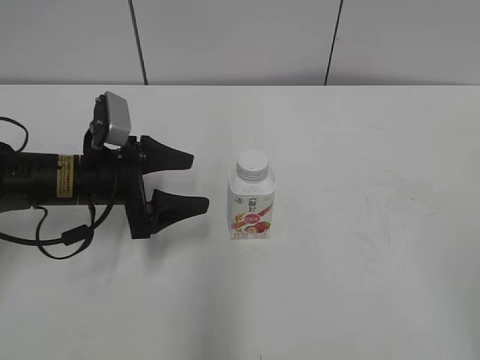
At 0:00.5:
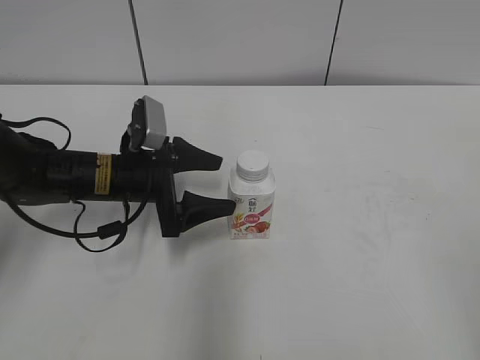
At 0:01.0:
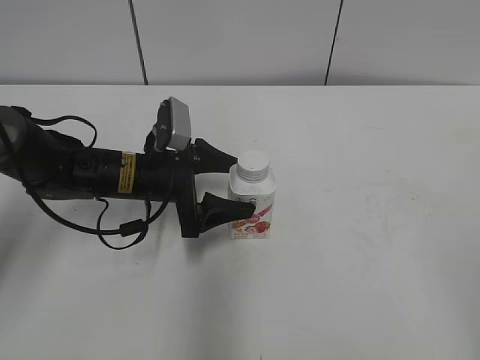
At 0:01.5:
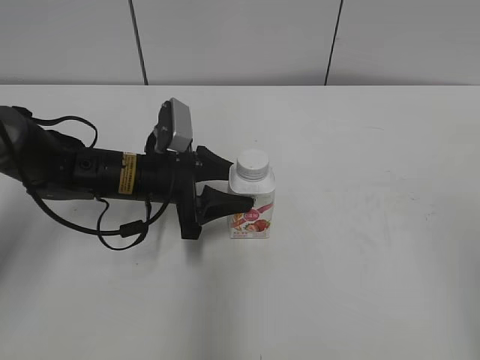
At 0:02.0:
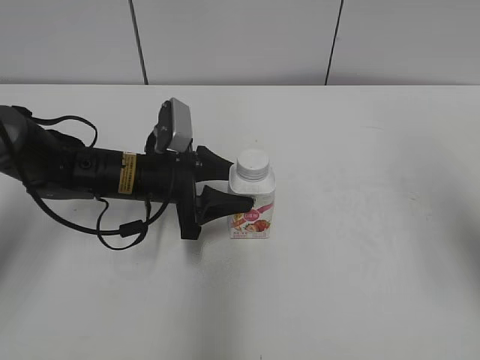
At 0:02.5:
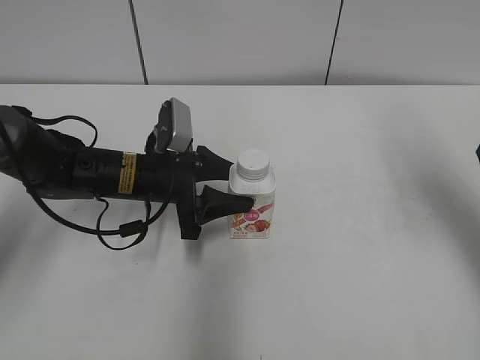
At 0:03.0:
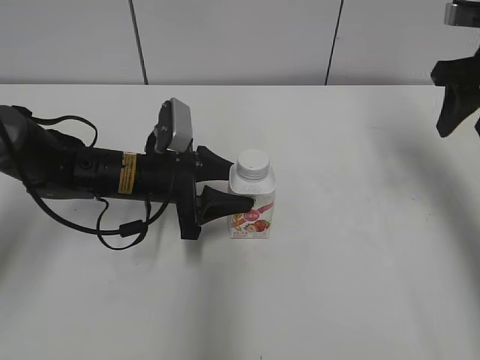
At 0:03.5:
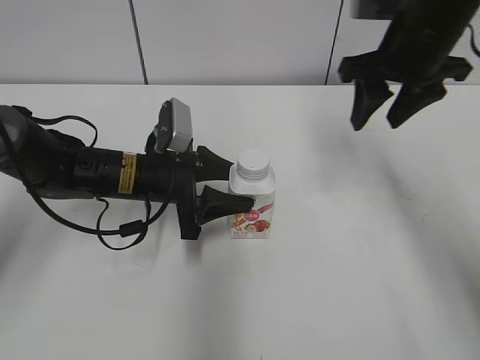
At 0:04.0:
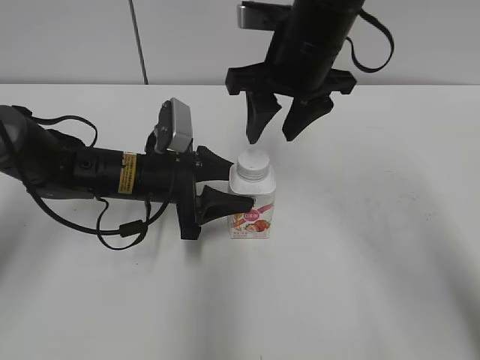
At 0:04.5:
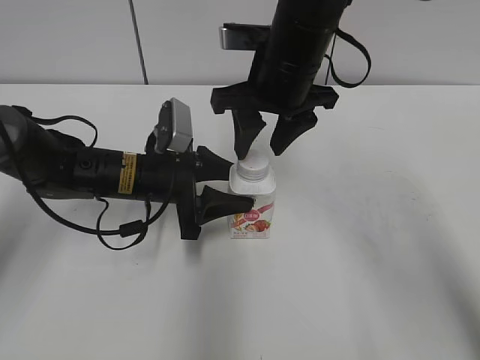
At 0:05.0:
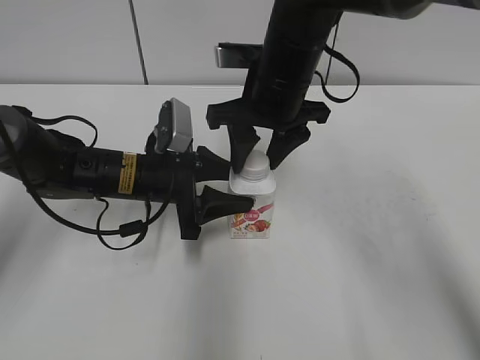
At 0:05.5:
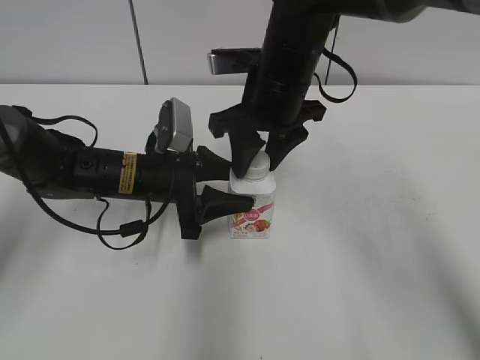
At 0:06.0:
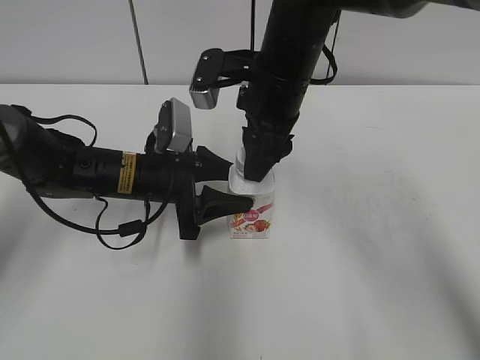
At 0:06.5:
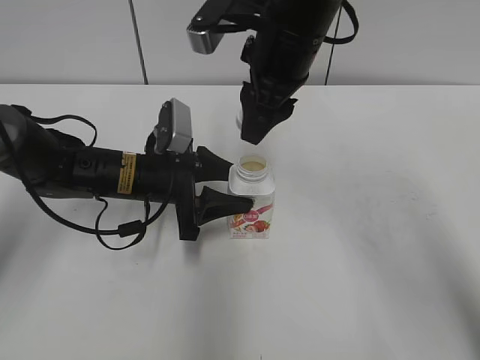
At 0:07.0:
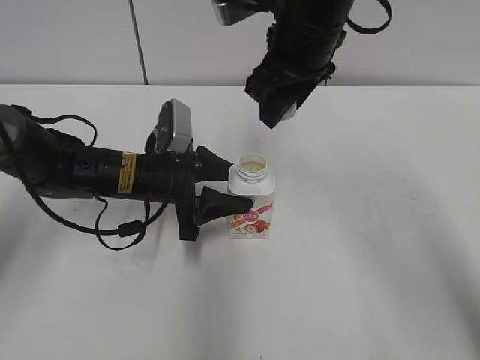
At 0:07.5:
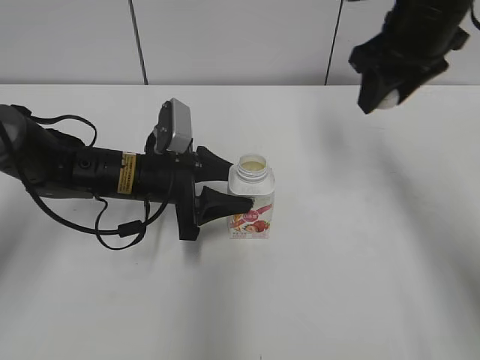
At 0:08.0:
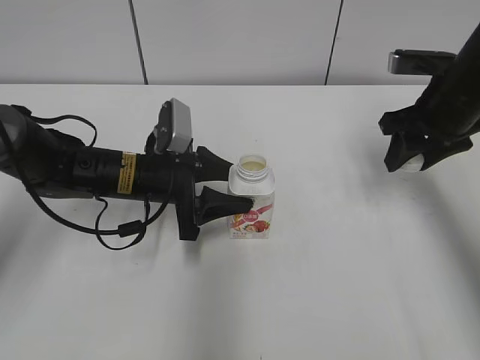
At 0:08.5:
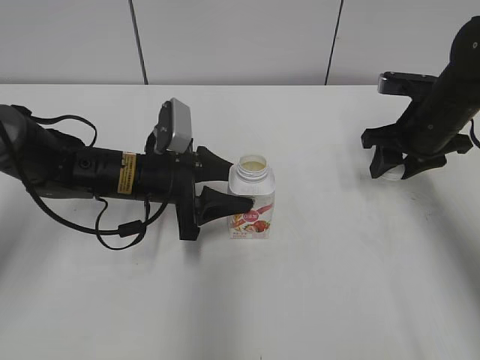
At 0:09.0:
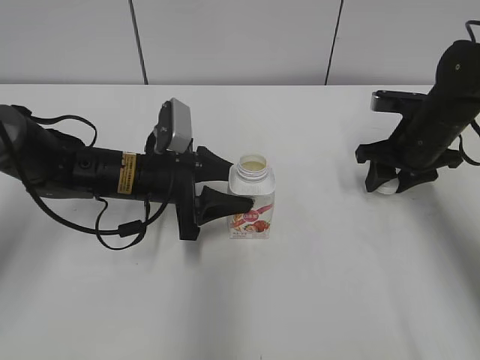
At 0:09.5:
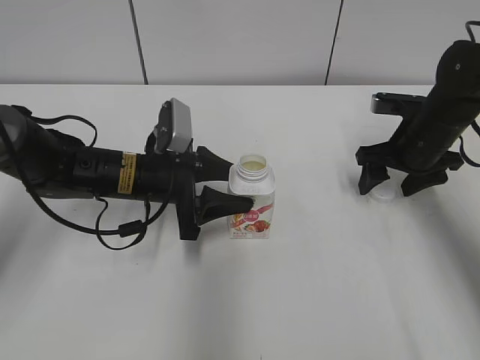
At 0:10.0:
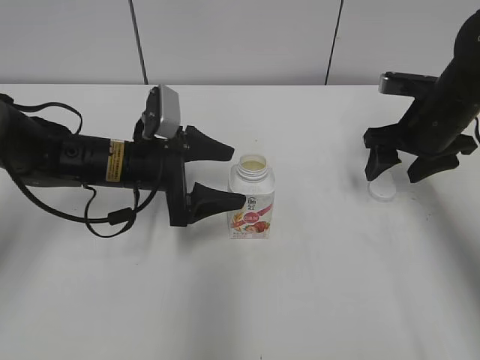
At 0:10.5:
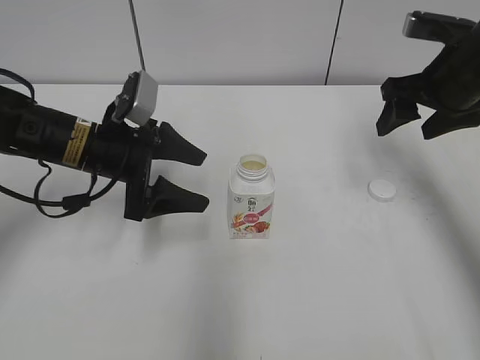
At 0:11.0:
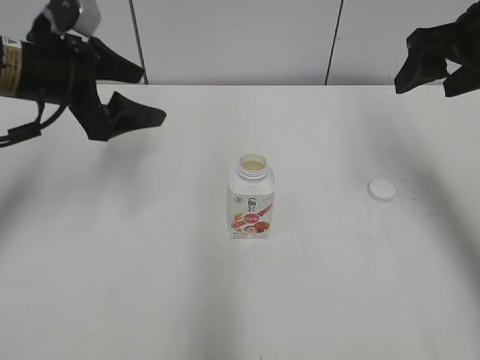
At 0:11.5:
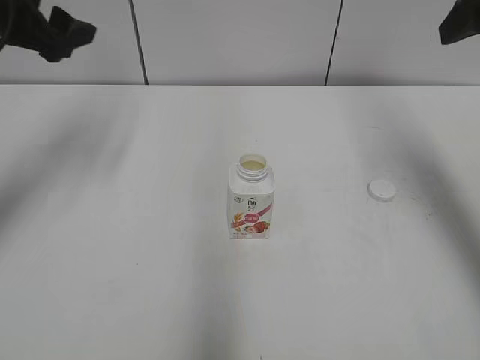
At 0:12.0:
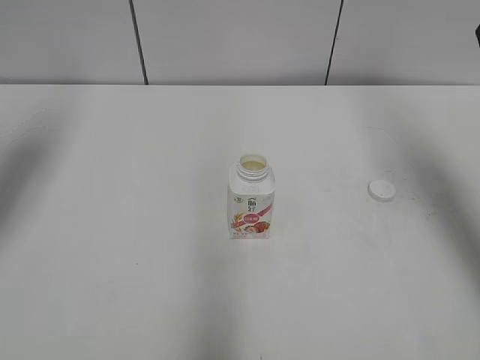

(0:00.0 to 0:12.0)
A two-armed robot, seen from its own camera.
Step, 0:06.5 - 0:09.0: Place the bottle cap on the right.
0:00.0 - 0:02.0: The left gripper is displaced to the right by about 5 cm, and closes up. The right gripper goes some 20 cm forward.
0:02.0 - 0:04.0: The right gripper moves to the left and forward, about 30 cm, and closes up.
0:06.0 - 0:08.0: The right gripper travels to the right by about 20 cm.
0:08.0 - 0:10.0: The left gripper opens up. The right gripper opens its fingers.
0:10.0 - 0:12.0: The right gripper moves upward, approximately 20 cm, while the left gripper goes about 25 cm upward and to the left.

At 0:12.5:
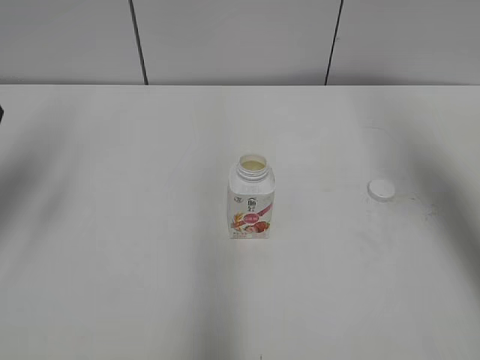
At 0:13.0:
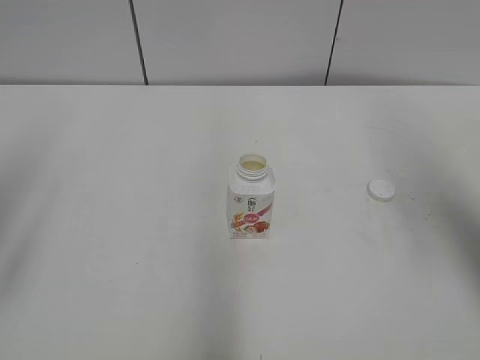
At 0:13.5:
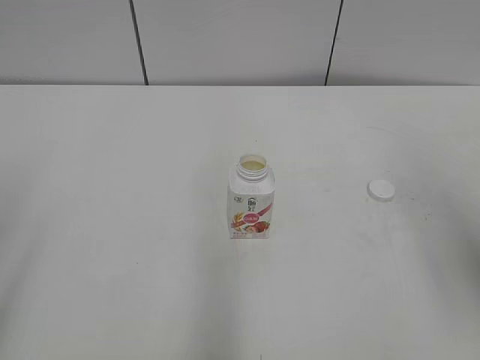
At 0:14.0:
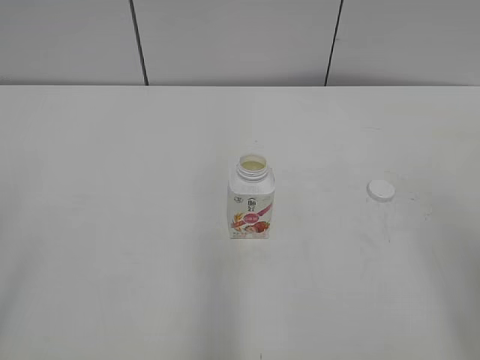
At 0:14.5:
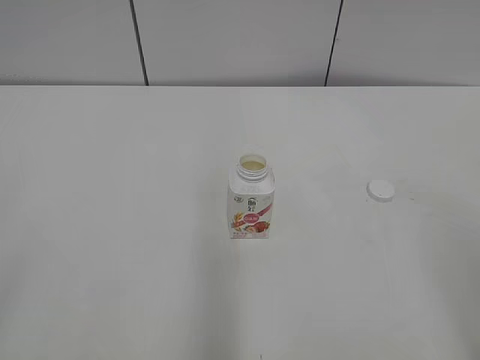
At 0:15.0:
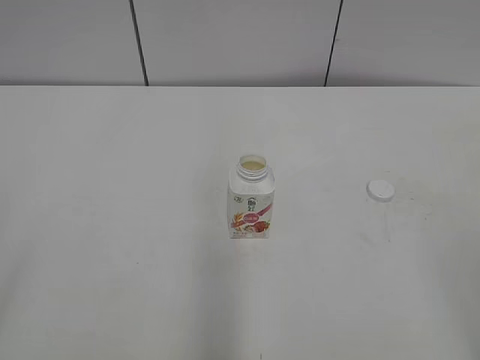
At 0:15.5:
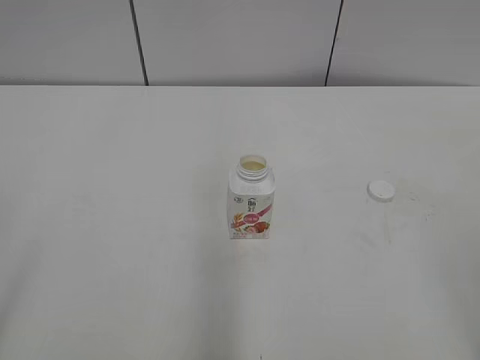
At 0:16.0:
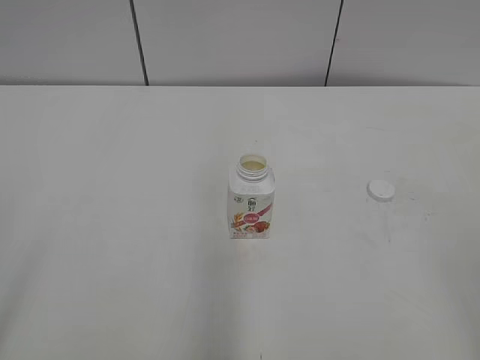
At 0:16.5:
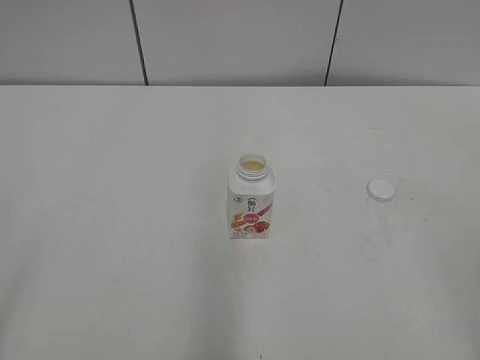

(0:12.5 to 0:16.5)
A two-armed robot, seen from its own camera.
0:12.5 - 0:14.5: The grippers both shift backward by roughly 25 cm.

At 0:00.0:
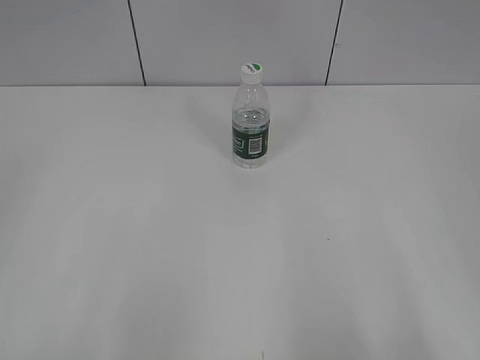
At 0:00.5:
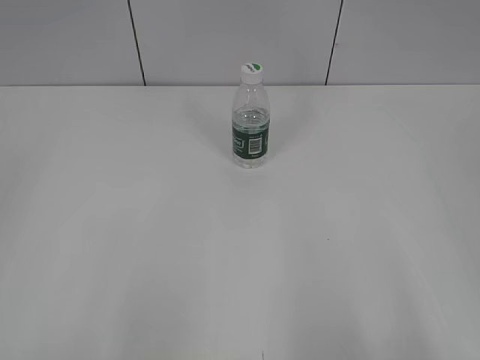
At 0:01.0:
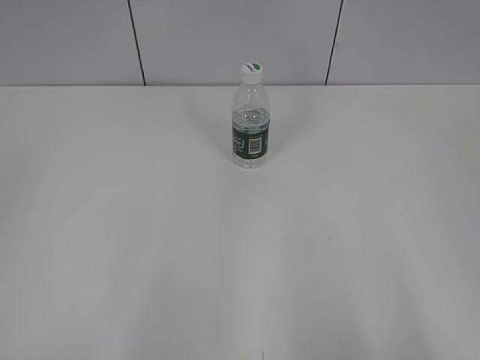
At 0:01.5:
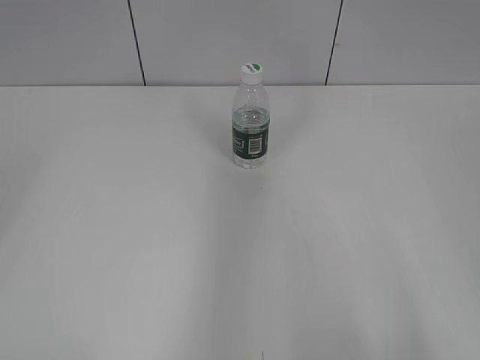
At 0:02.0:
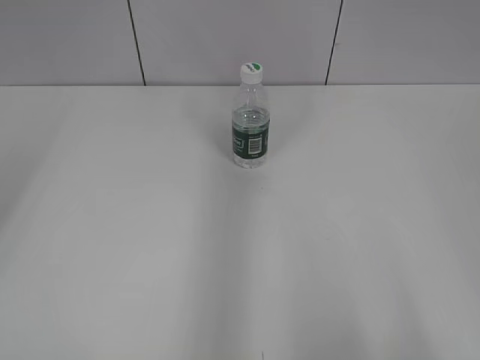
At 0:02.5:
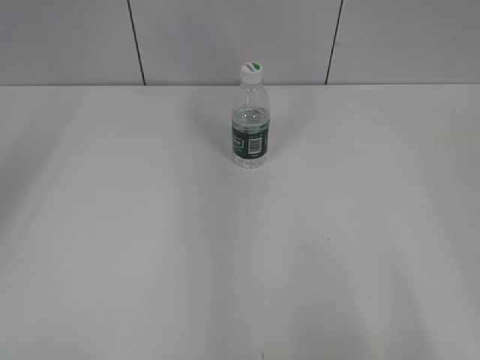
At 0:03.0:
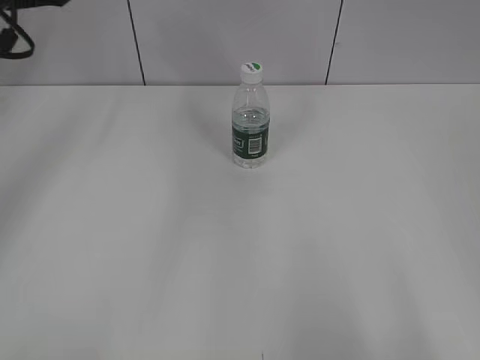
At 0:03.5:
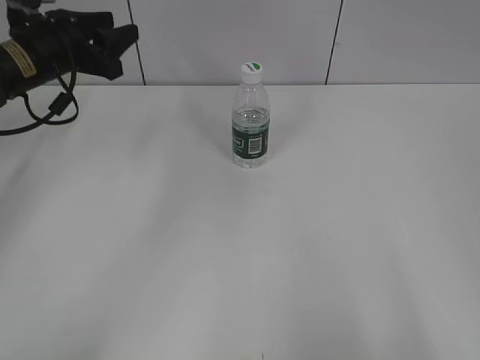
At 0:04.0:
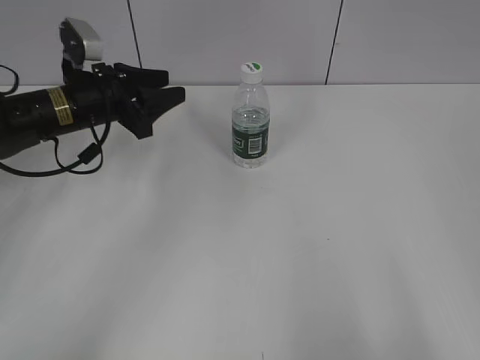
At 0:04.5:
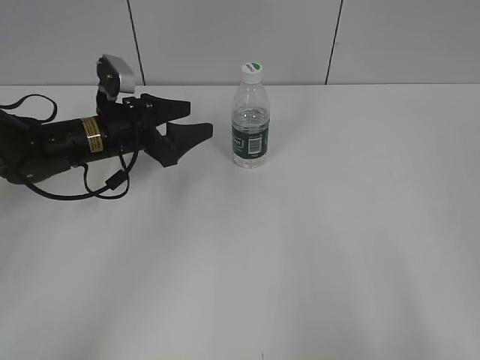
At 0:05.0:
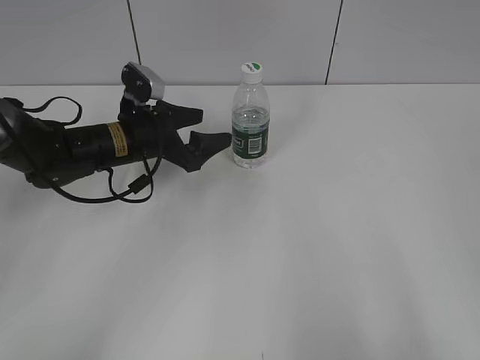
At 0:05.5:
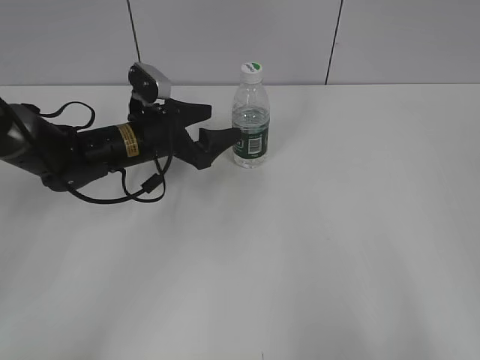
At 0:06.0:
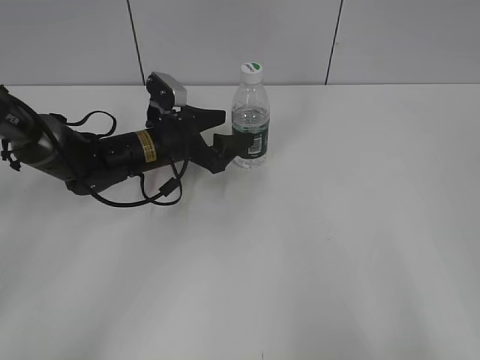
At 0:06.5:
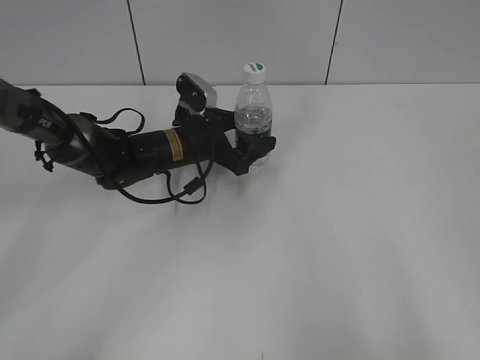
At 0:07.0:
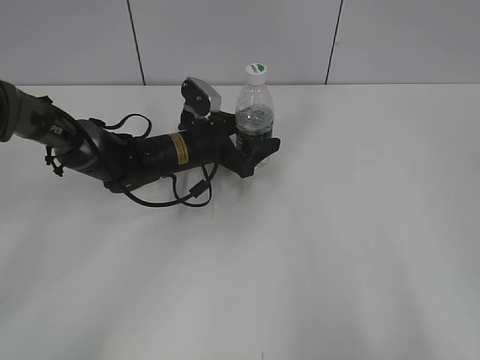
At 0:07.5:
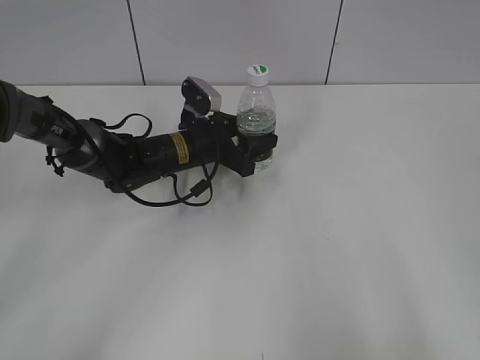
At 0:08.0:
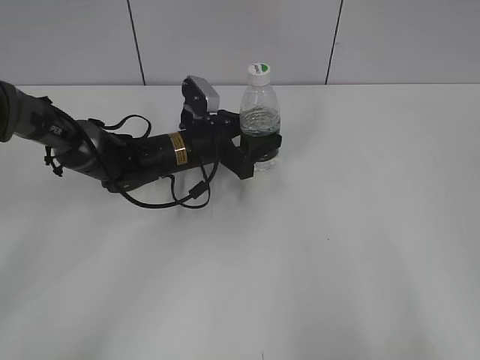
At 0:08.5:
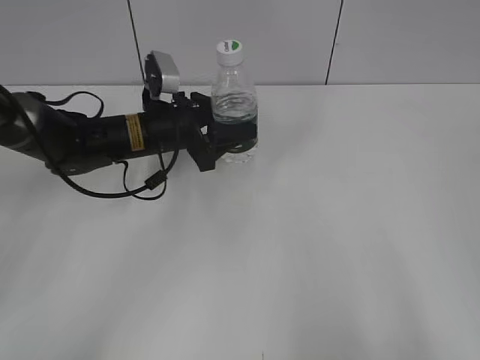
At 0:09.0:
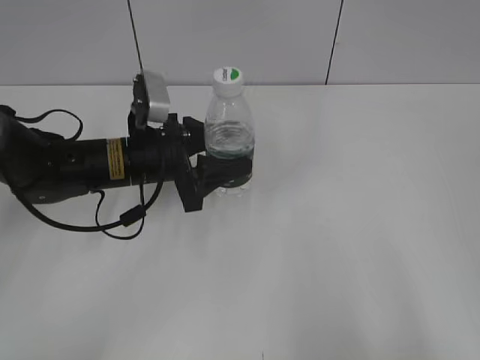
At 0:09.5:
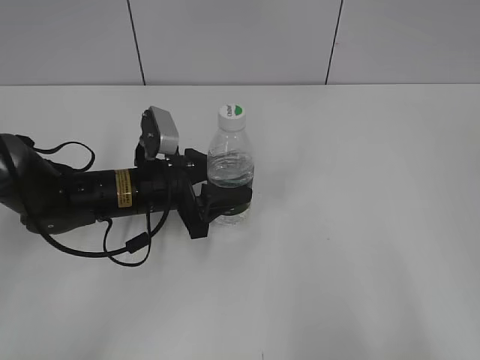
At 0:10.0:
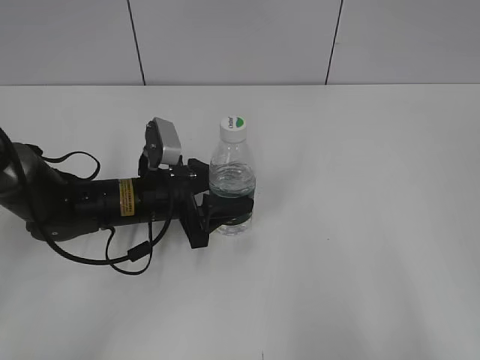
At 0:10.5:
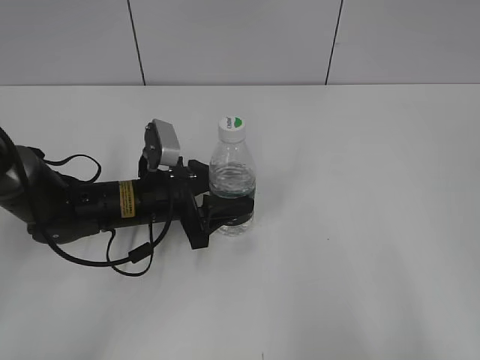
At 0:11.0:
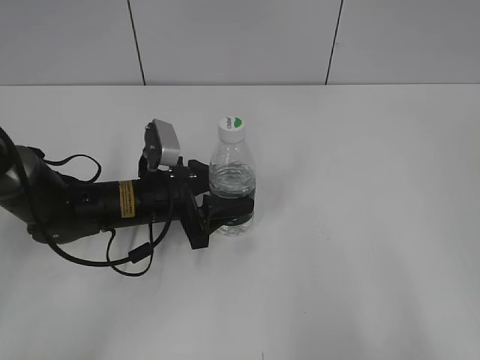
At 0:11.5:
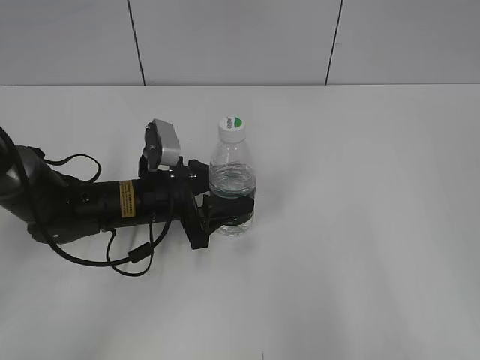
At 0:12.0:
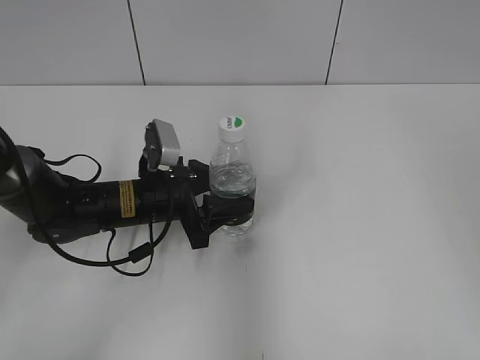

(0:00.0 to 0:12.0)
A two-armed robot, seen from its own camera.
Step, 0:00.0 - 0:07.5: Grasp the bottle and move it to the center of the table with the left gripper.
Step, 0:08.0 - 0:10.0: Lift the bottle and move it to the center of the table with the left gripper.
0:02.0 - 0:04.0: The left gripper travels downward and forward by some 40 cm.
0:04.0 - 0:06.0: The left gripper shifts roughly 10 cm to the right and downward, and opens.
0:06.0 - 0:08.0: The left gripper closes.
0:08.0 - 0:10.0: The left gripper goes approximately 10 cm backward.
0:10.0 - 0:12.0: The right gripper is displaced forward and upward by approximately 15 cm.
